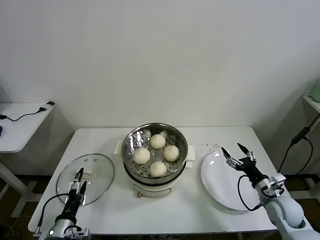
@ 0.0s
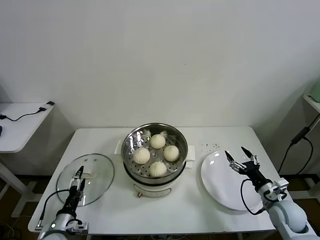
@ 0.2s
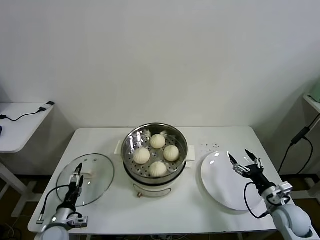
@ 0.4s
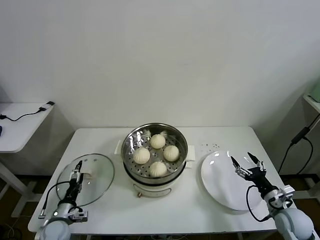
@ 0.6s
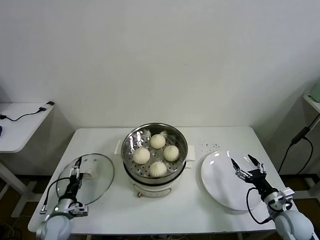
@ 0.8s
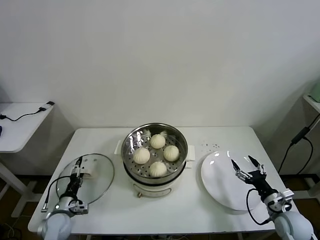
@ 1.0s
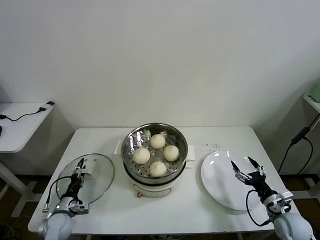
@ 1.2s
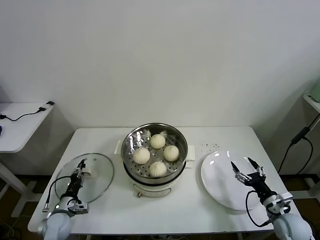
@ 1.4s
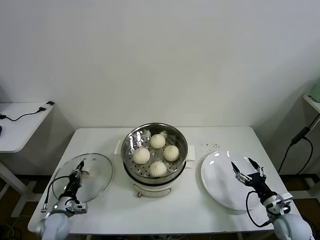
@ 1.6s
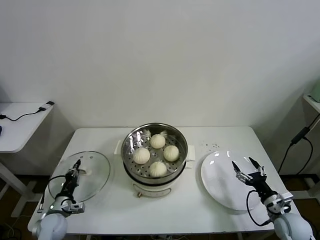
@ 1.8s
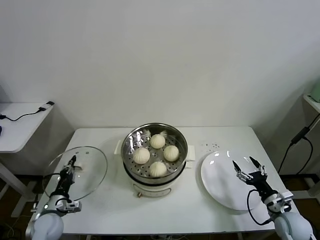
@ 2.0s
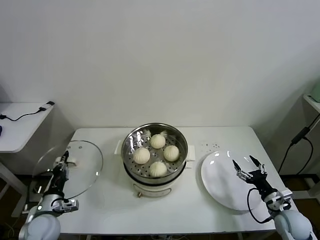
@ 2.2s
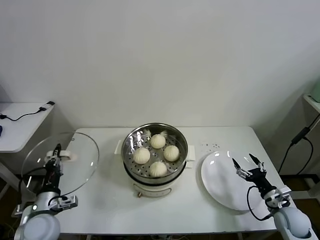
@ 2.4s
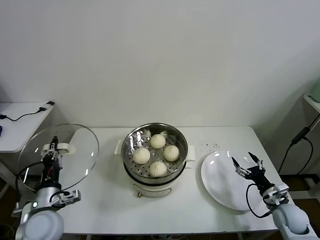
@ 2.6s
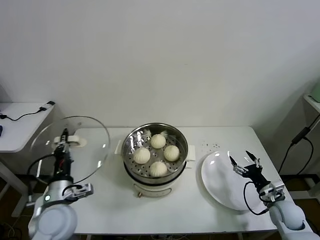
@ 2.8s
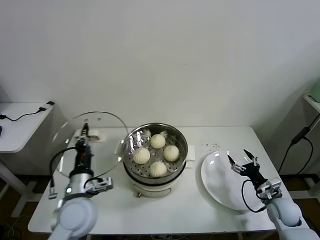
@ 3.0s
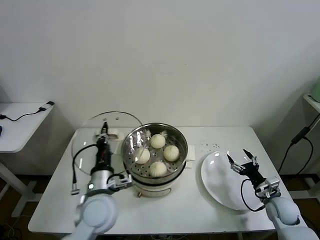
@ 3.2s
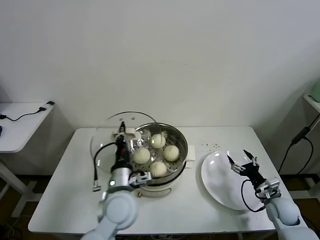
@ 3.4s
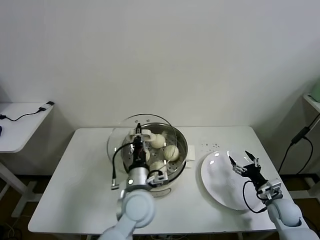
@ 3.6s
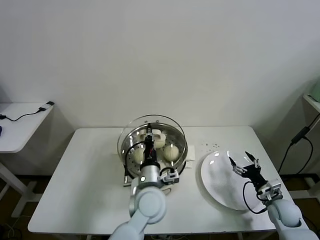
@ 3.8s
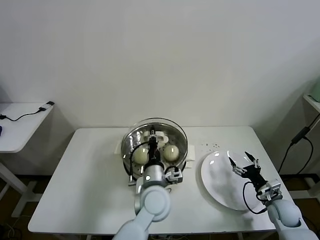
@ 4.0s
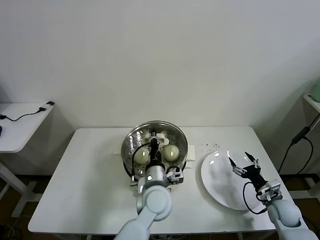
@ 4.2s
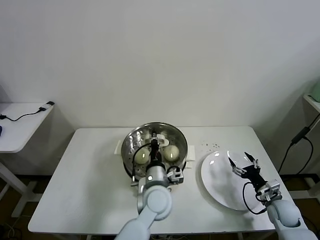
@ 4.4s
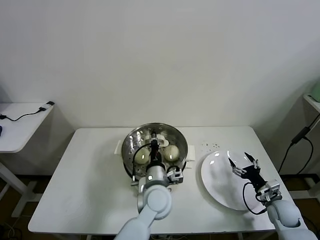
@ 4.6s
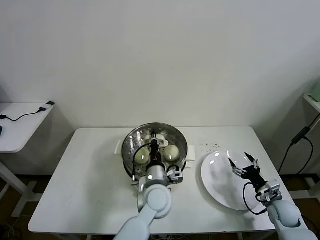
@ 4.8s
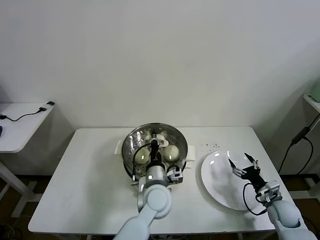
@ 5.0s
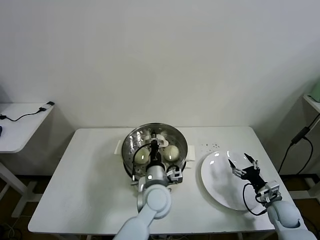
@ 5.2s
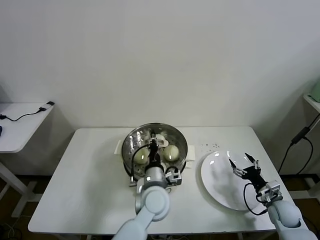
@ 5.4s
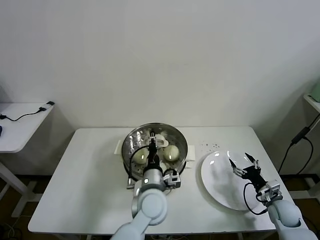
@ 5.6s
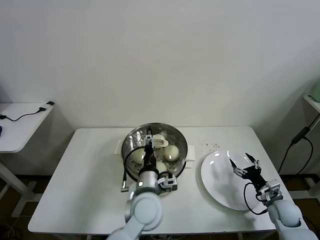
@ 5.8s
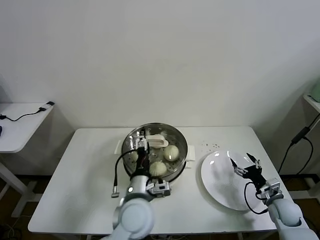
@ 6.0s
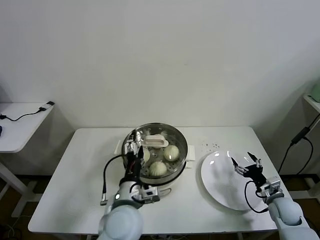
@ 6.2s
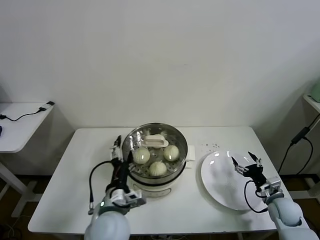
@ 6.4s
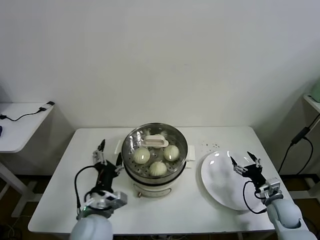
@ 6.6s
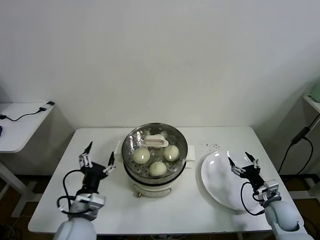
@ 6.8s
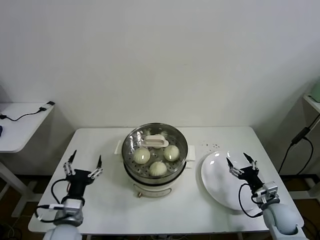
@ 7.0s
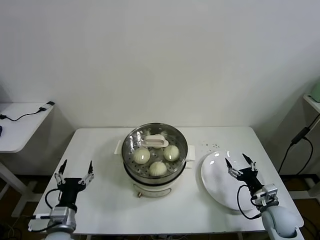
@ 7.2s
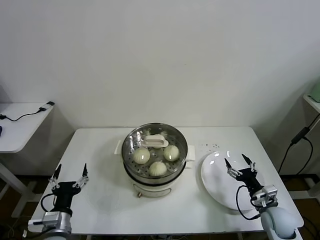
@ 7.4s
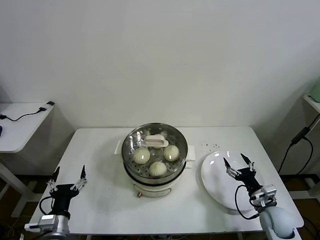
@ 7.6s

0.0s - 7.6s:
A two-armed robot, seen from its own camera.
Task of the whole recording: take steamed baozi put them in steamer then cover it.
Step, 1.8s - 5.6s: Place the pot lid on the steamer with left gripper.
0.0s - 1.6s: The left gripper heads forward, downward and to the left, covering about 15 cm, and closes up; the right gripper changes place by roughly 5 cm.
1.6s - 3.0s: The right gripper shifts some 5 cm forward; the left gripper heads upward and to the right, covering about 25 cm.
3.0s - 4.6s: The left gripper goes approximately 20 cm to the right.
4.6s - 6.0s: The left gripper moves about 5 cm, and opens its fingers.
6.0s - 7.6s: The left gripper shifts about 25 cm to the left; the right gripper moves to the left, approximately 5 cm.
